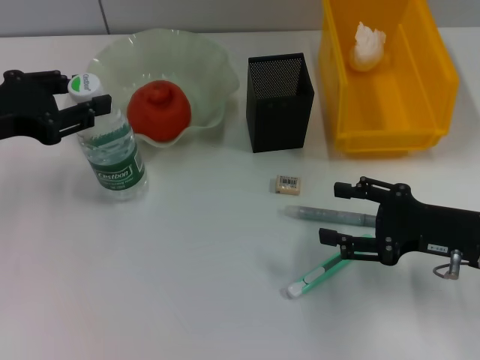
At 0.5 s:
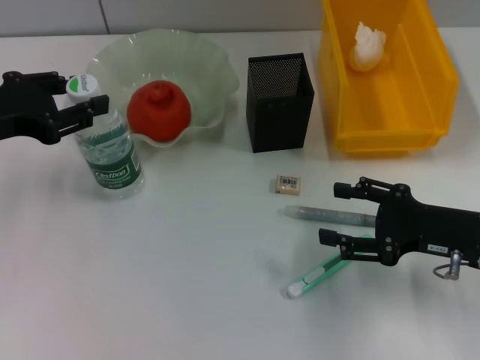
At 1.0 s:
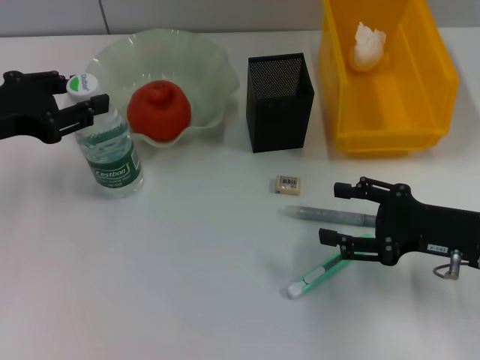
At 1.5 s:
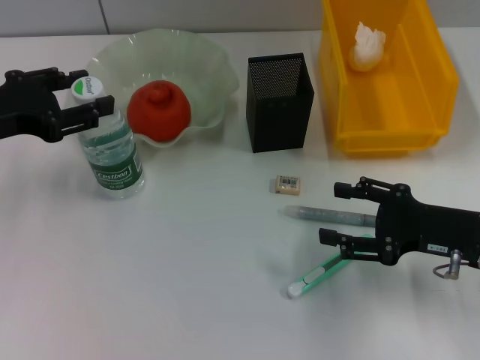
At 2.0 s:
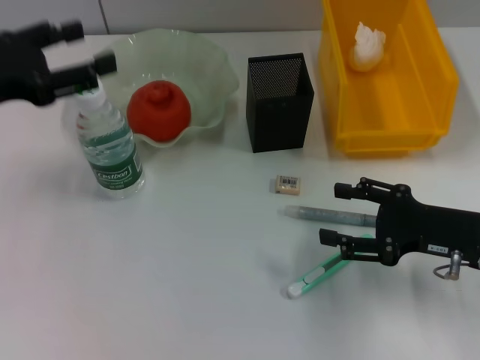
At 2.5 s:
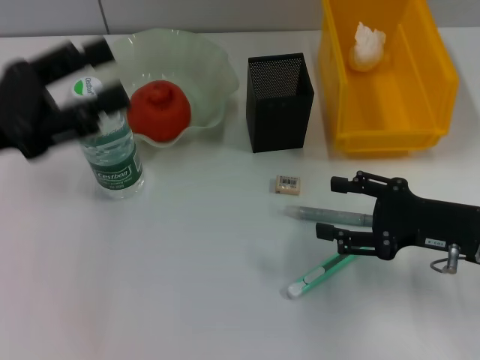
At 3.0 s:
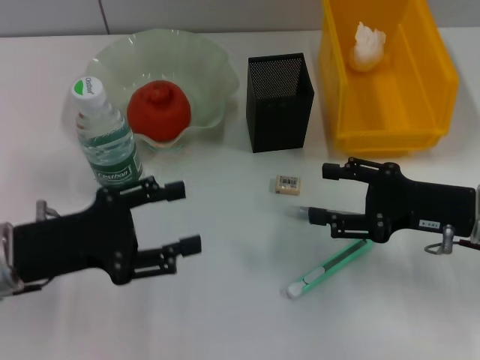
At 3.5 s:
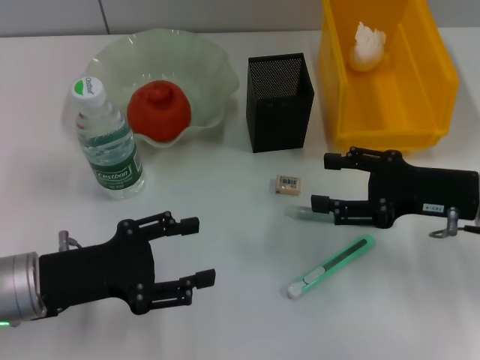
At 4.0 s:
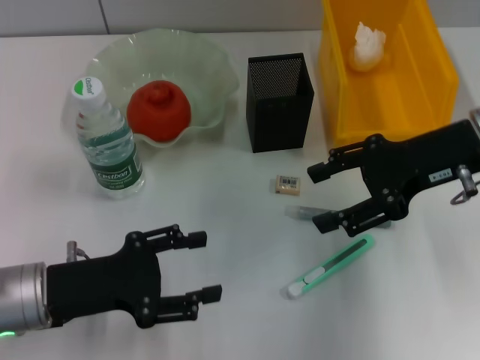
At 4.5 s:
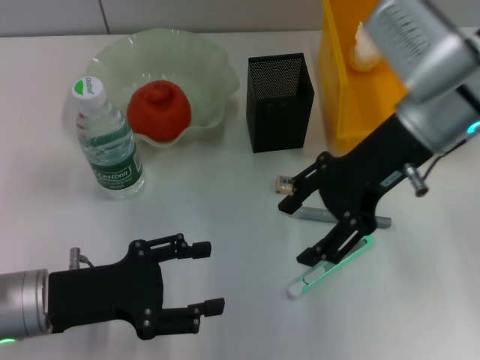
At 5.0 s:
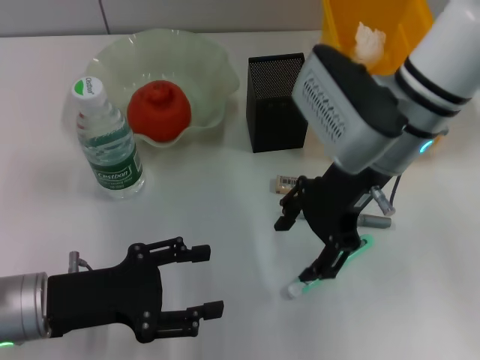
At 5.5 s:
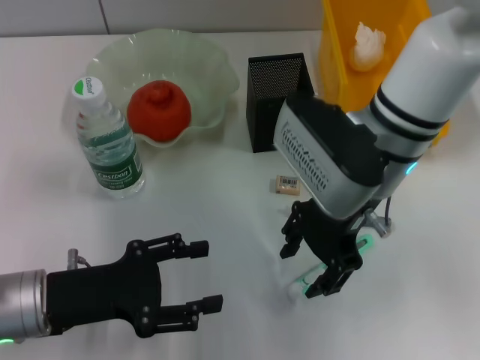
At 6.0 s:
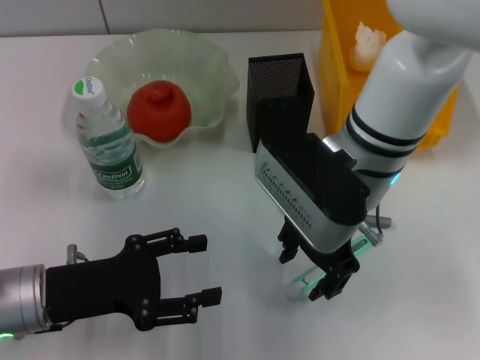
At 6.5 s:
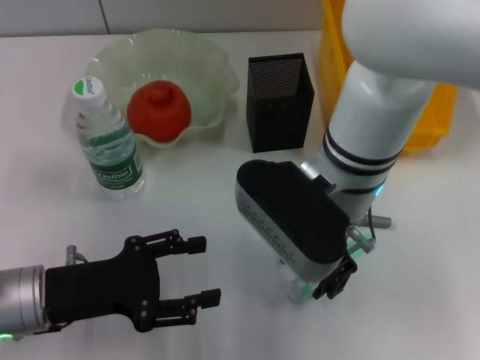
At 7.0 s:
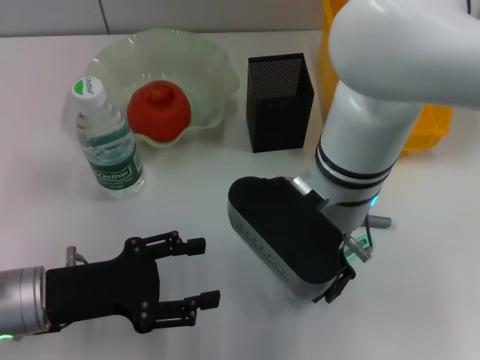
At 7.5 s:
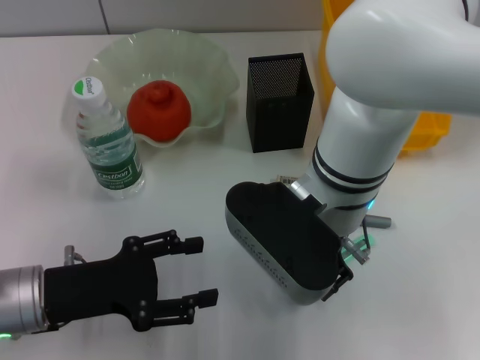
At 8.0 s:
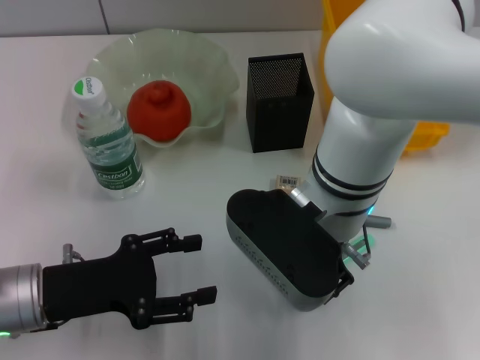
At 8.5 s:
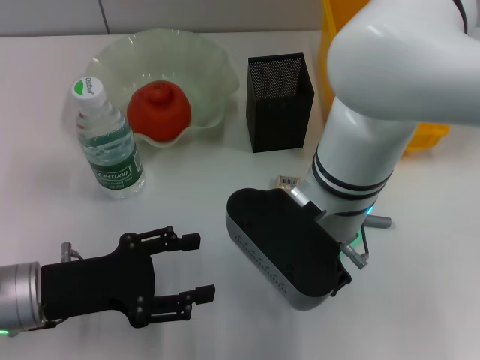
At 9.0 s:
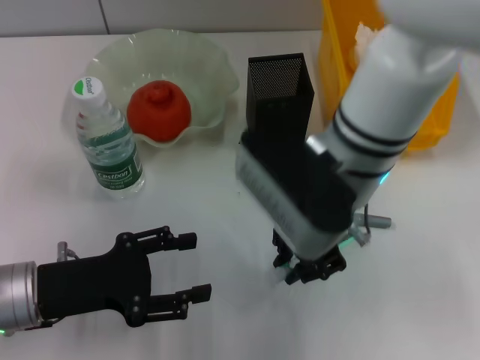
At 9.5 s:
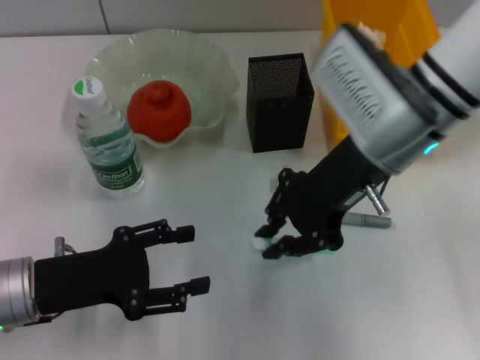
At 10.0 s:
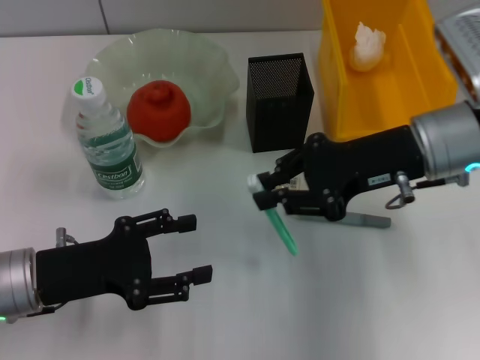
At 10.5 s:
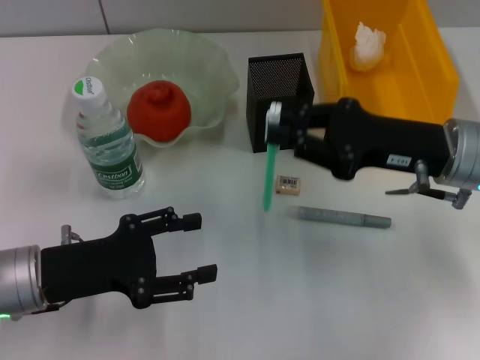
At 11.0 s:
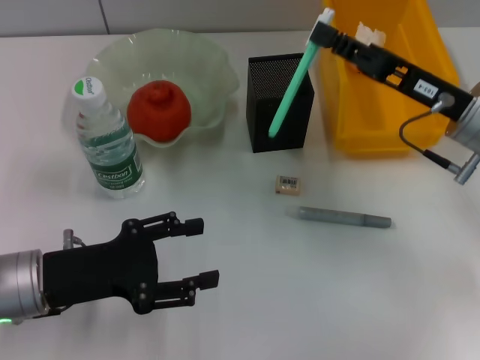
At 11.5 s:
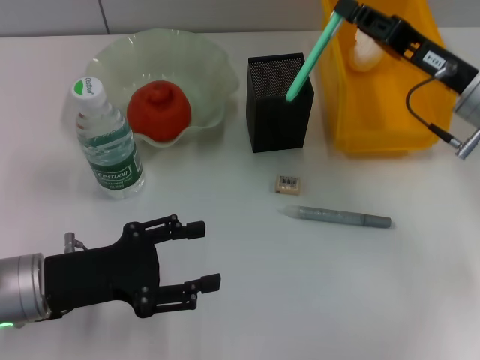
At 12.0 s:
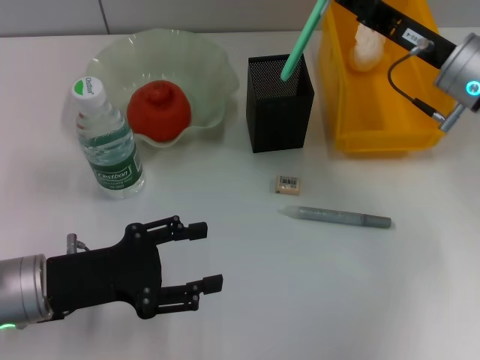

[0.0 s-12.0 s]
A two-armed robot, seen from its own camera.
Step, 0.0 to 2.0 s: Place the water bottle on the table with the left hand.
Step, 2.5 to 8.0 s: Grab the blue utility knife with the right hand.
0.0 to 2.0 s: The left gripper opens its fingers.
2.0 to 4.0 s: The left gripper shifts some 15 cm downward, backward and to the right; the right gripper goes roughly 15 cm upward and forward.
4.0 to 6.0 s: The right gripper goes approximately 15 cm to the left.
6.0 to 8.0 s: The grippers move only a little.
8.0 to 10.0 s: The right gripper moves to the right, some 15 cm, and closes.
10.0 to 12.0 s: The right gripper changes place by some 5 cm.

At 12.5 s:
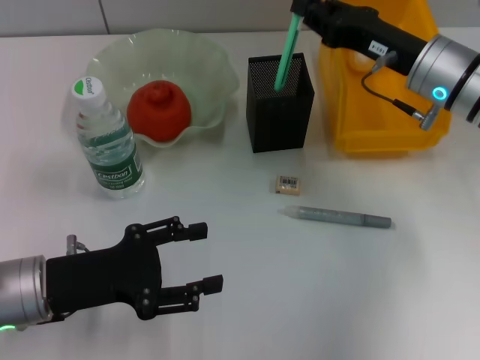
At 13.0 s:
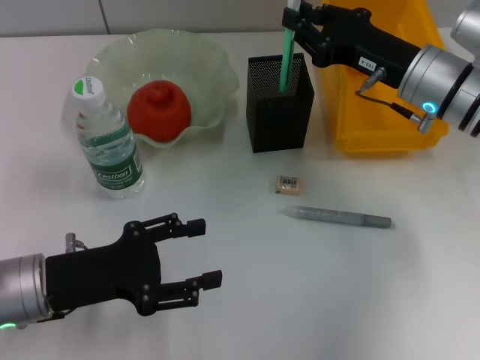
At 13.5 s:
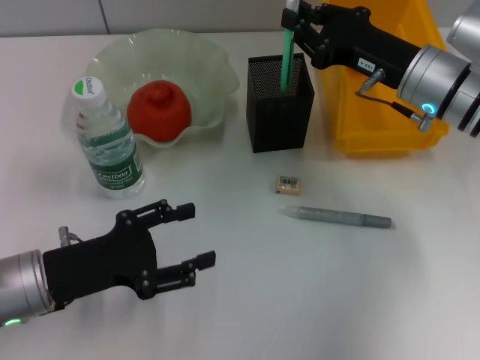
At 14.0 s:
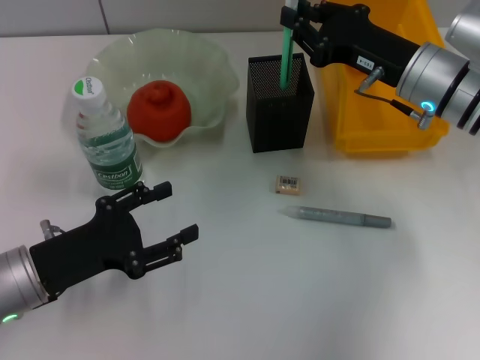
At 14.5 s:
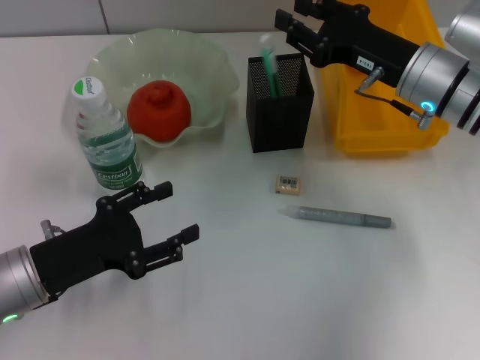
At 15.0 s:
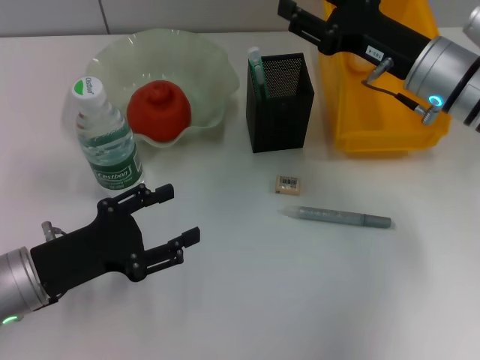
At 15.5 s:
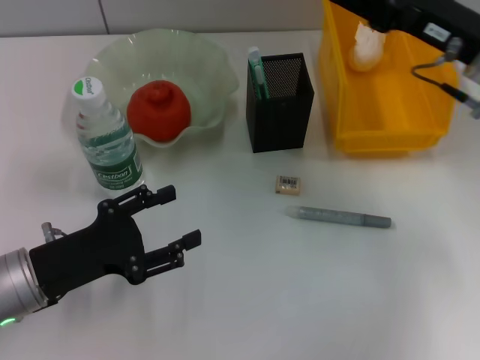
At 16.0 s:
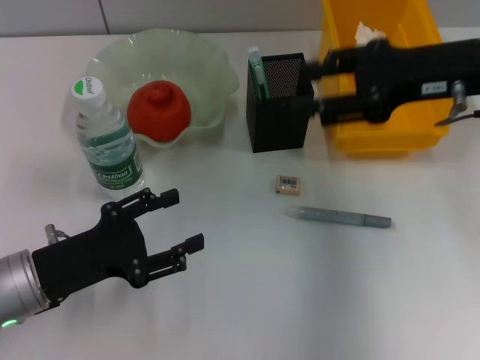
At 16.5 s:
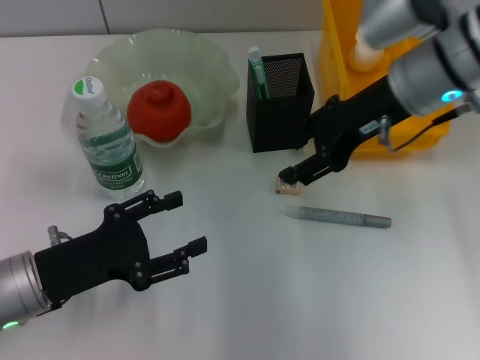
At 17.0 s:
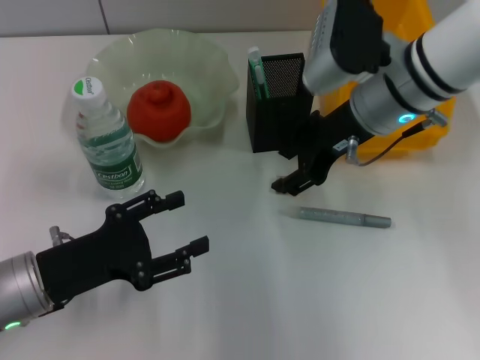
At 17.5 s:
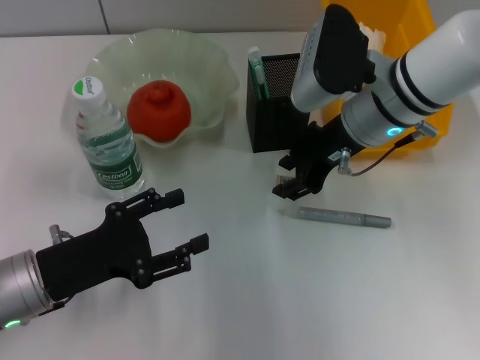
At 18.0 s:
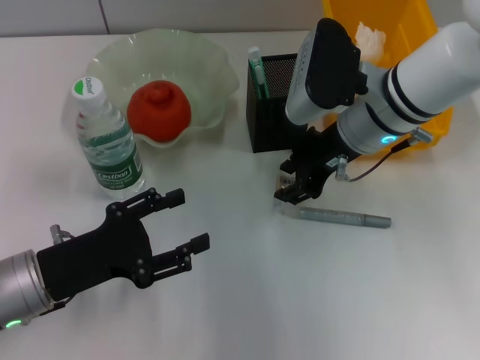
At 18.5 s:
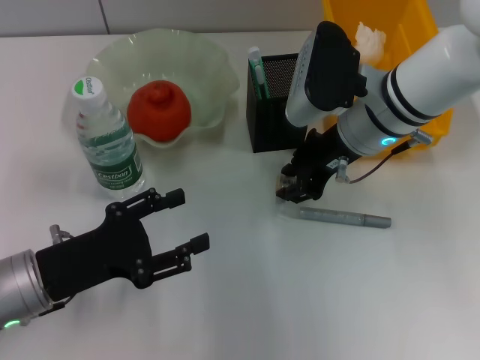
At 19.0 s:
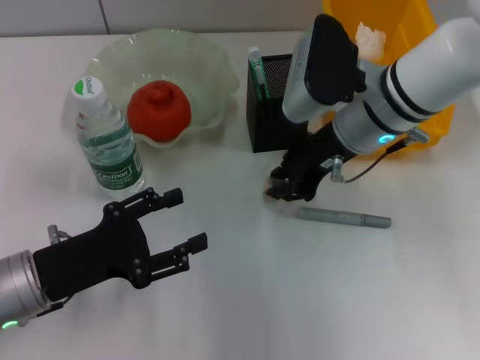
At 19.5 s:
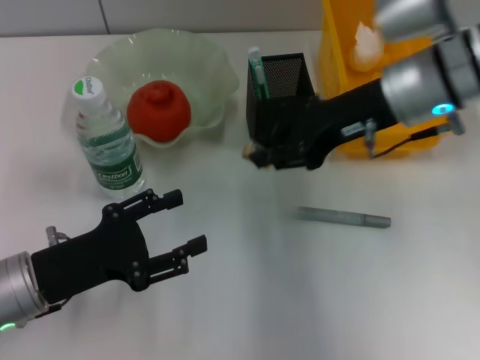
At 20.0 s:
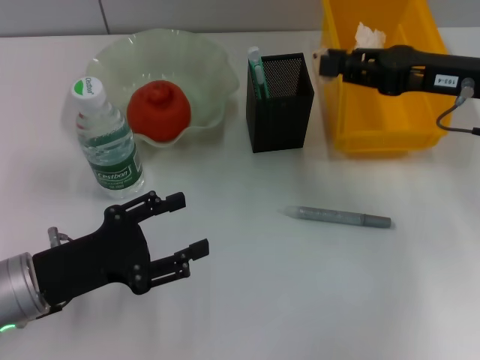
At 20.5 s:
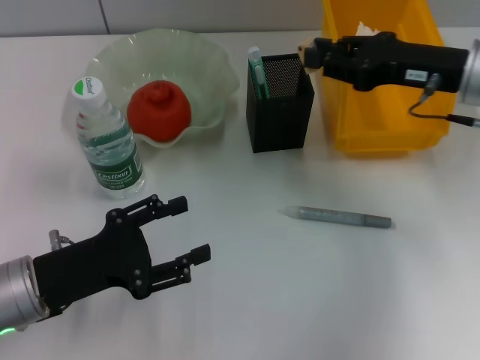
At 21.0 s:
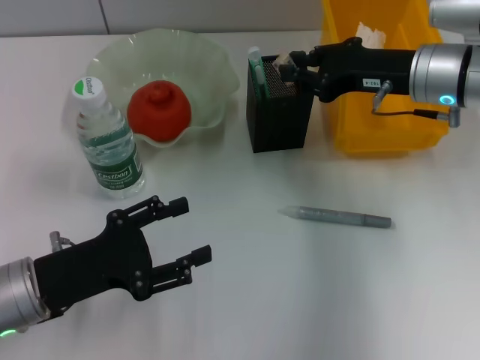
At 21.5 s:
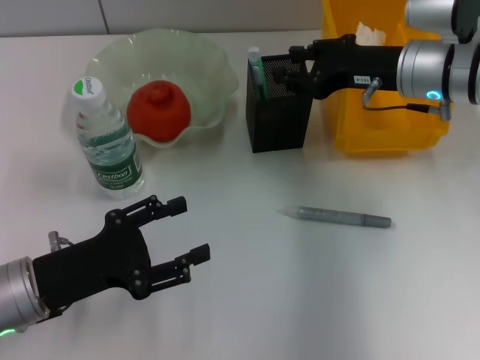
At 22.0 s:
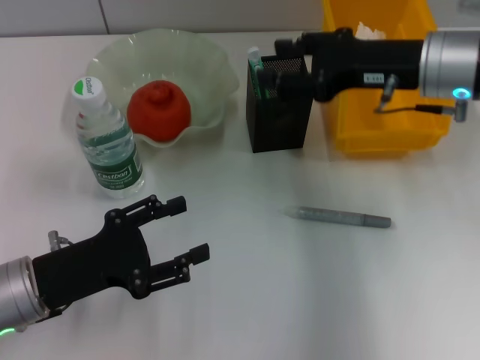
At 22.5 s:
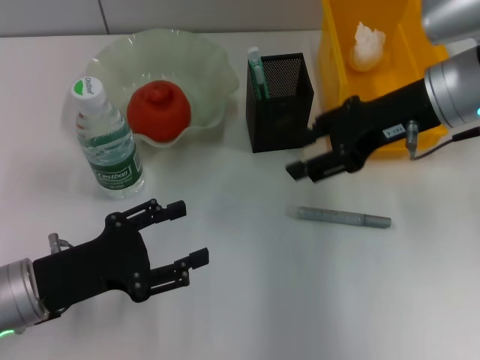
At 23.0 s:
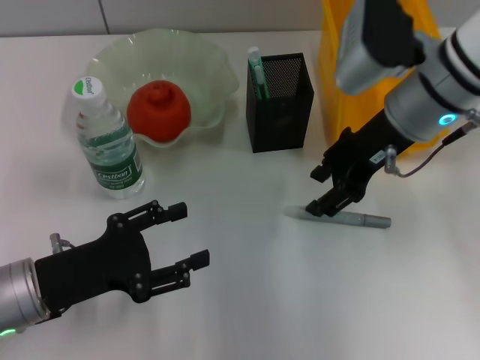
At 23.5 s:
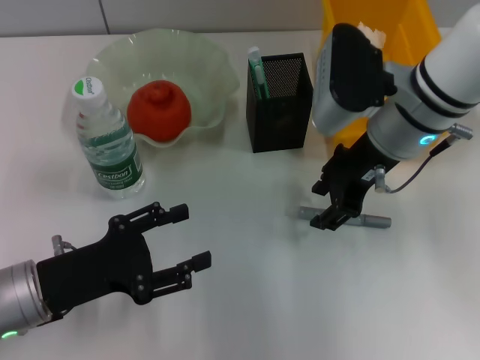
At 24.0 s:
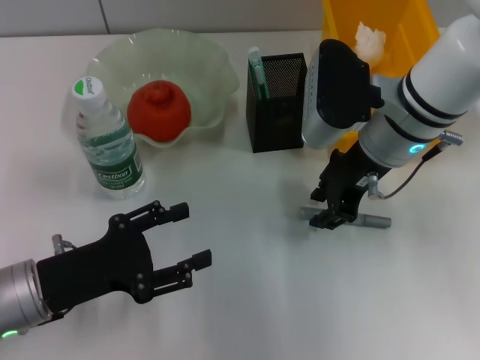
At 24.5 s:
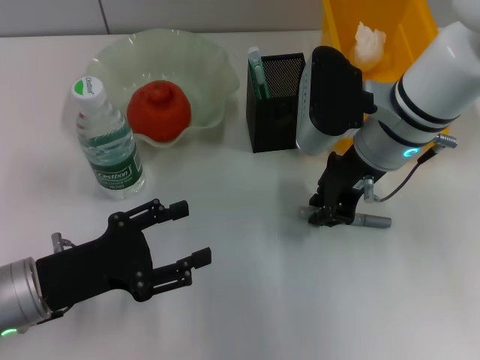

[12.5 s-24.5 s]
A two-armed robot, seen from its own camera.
Step, 12.5 to 14.5 s: Place the blue utility knife into the pen holder with the right hand.
Step, 15.0 to 18.5 s: Grab the eraser with the right hand.
Step, 19.0 to 21.5 s: Put the eraser into the pen holder with the right hand.
12.5 to 14.5 s: There are only small adjustments of the grippers.
14.5 to 16.5 s: The right gripper goes approximately 5 cm upward, and opens its fingers.
16.5 to 18.5 s: The right gripper travels downward by about 5 cm.
18.5 to 20.5 s: The right gripper travels to the right by approximately 10 cm.
20.5 to 22.5 s: The right gripper shifts by some 5 cm, and opens its fingers.
22.5 to 24.5 s: The right gripper is displaced to the left by approximately 5 cm, and closes up.

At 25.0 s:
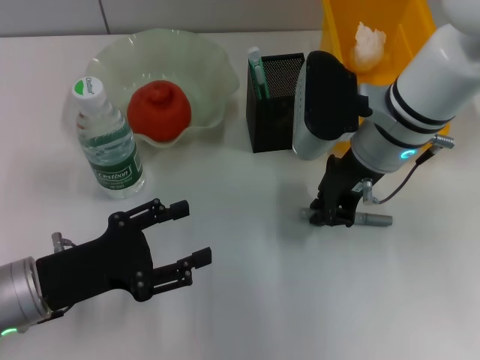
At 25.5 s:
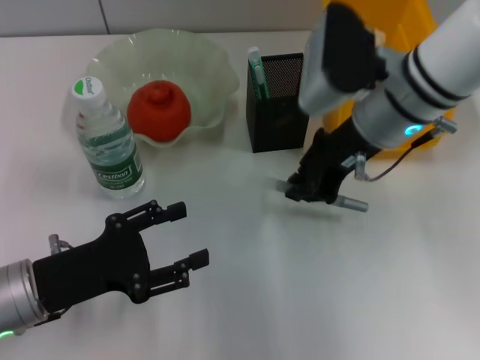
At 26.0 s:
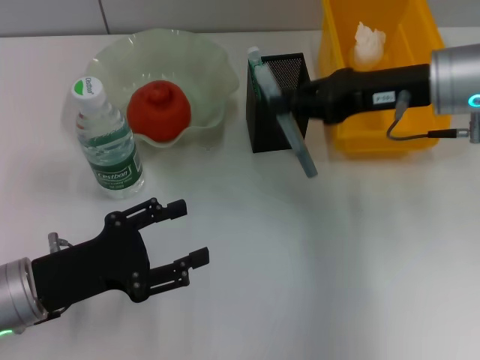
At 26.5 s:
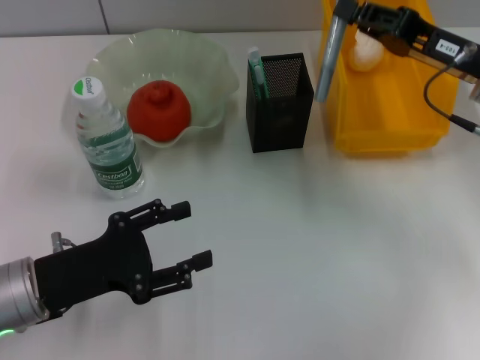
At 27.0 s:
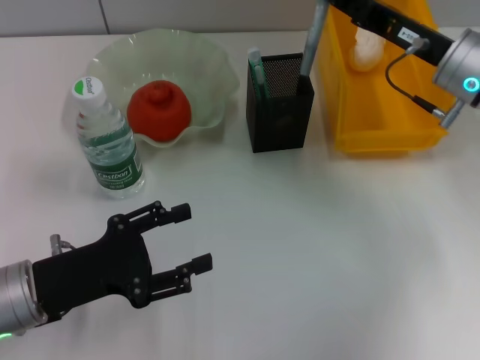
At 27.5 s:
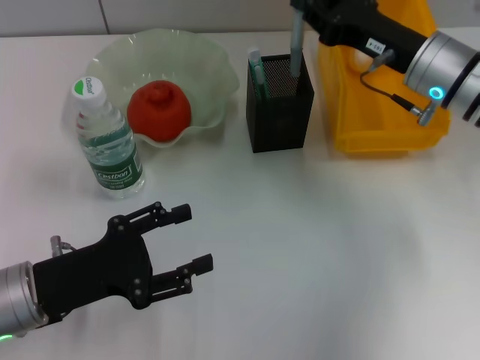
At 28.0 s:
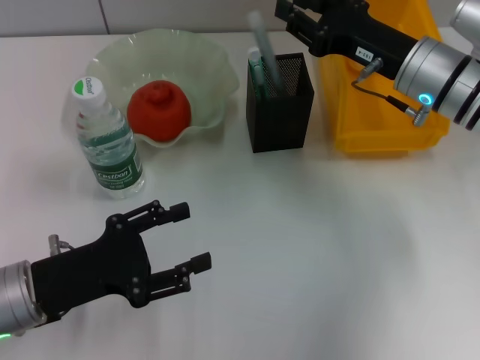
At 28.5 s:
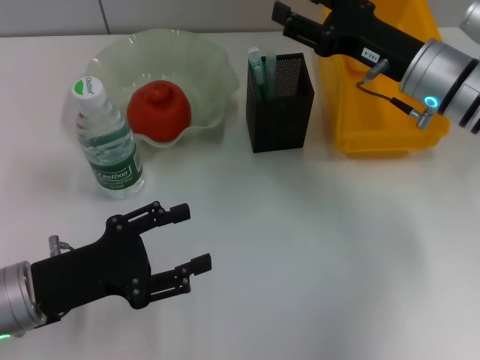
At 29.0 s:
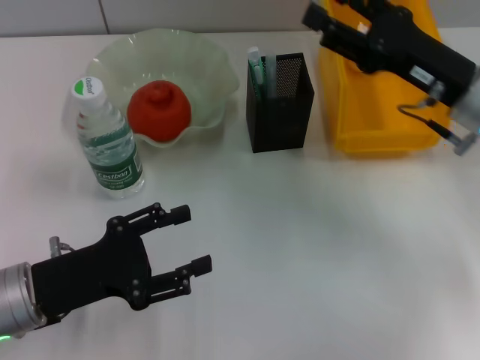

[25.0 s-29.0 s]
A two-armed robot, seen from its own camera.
Step, 25.0 to 28.0 s: Place the gray glue into the pen holder with the right hand.
25.0 to 27.0 s: The right gripper moves to the right, some 10 cm.
27.0 to 29.0 s: The right gripper opens.
